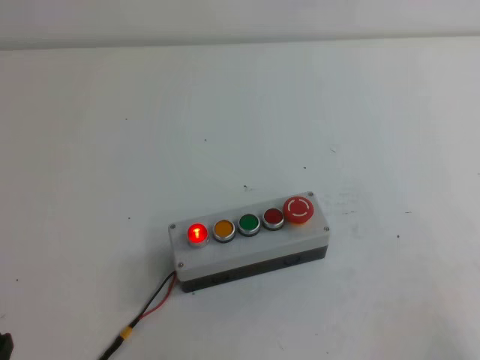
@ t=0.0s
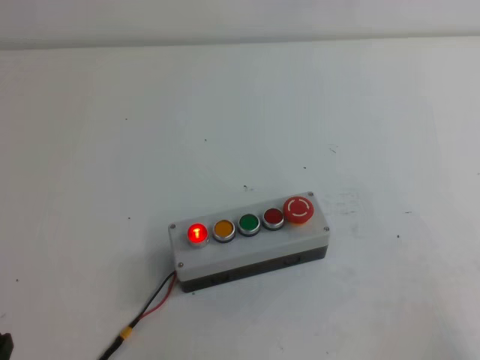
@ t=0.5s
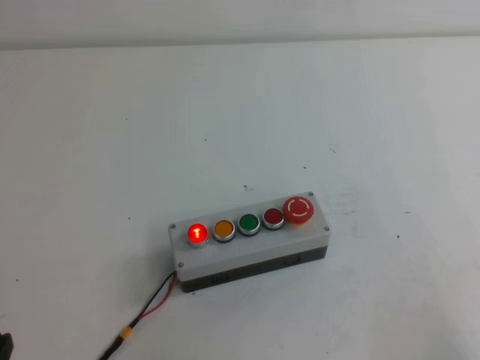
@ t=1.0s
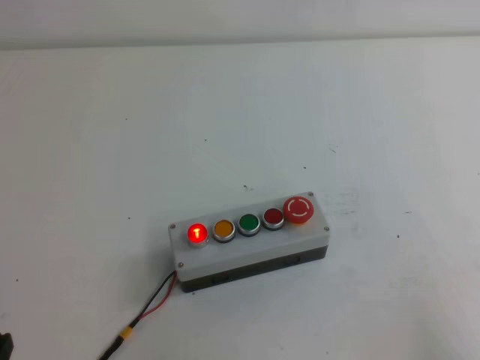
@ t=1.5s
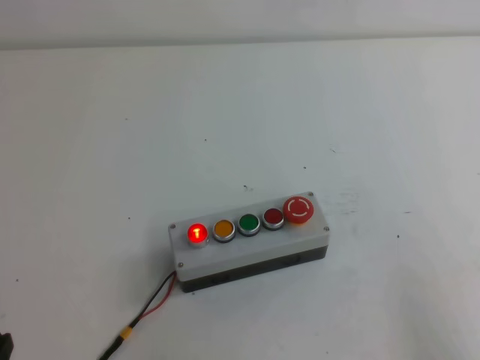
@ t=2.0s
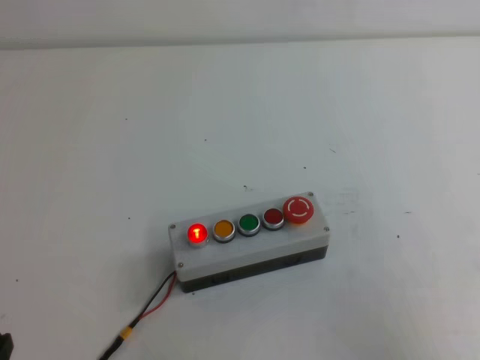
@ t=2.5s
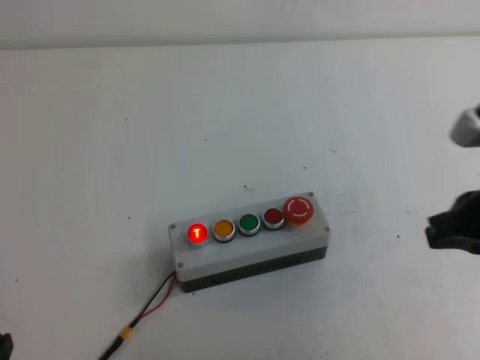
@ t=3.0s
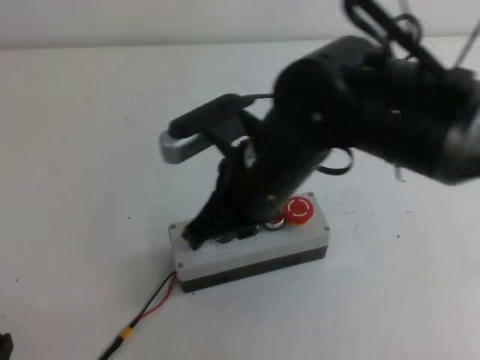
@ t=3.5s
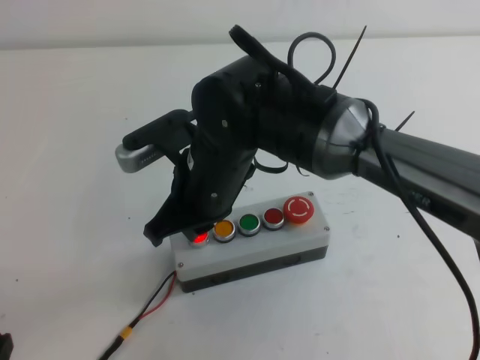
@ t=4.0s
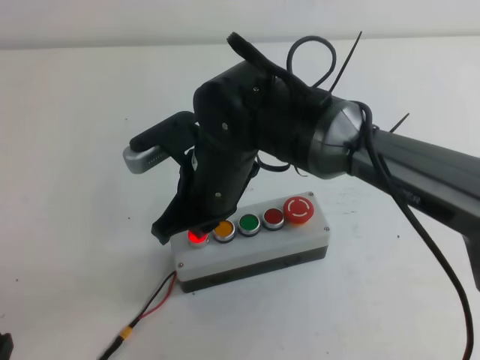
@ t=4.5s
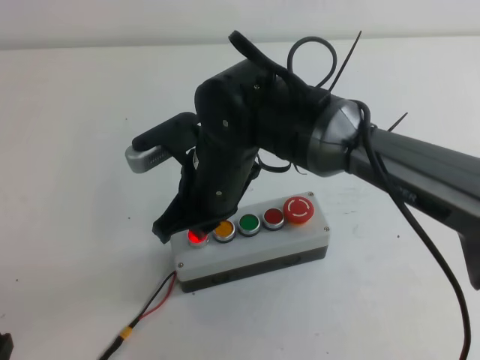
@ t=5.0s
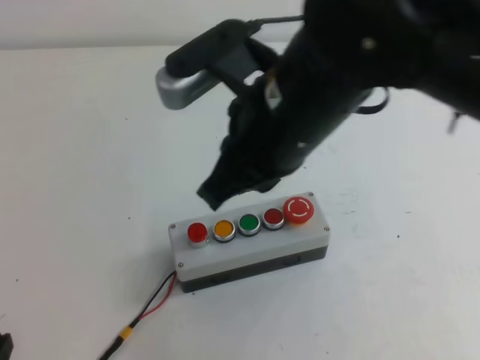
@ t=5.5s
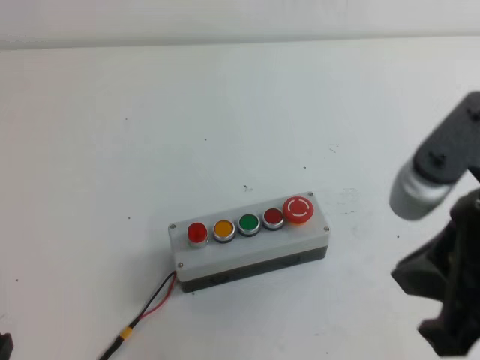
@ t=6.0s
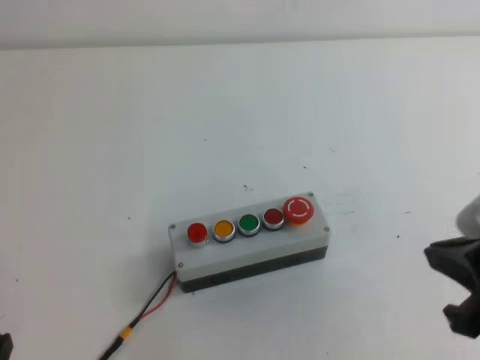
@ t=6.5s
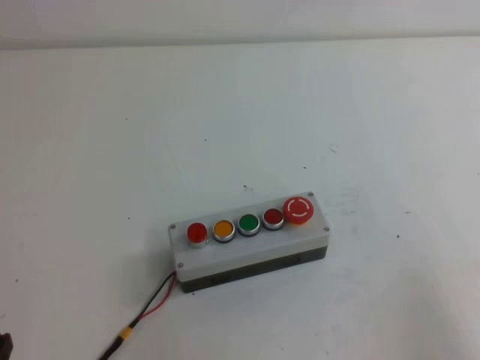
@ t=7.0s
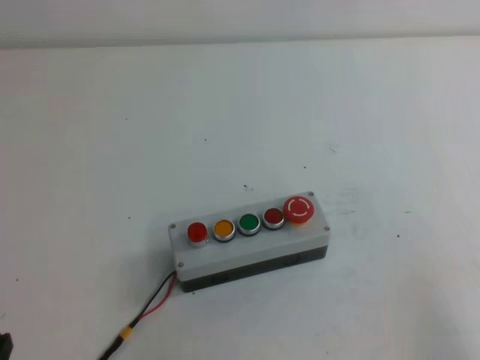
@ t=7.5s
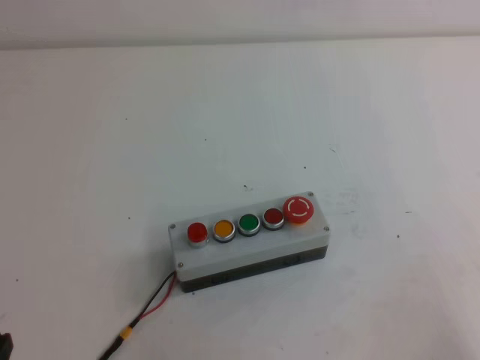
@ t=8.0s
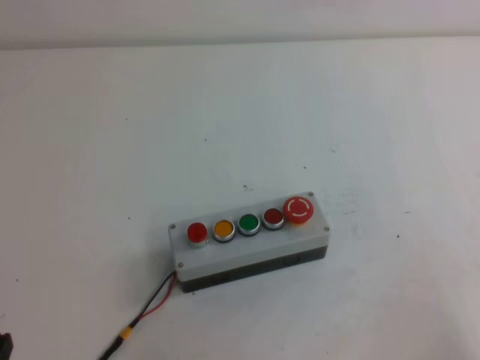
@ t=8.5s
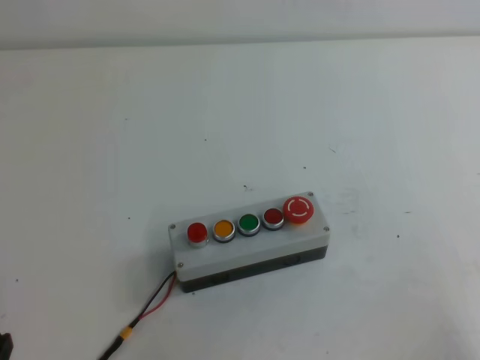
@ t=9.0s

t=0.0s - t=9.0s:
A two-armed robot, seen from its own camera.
Task of the whole recording: press the button switch with the right claw to turn off the button.
Step, t=0.0s - t=9.0s: Press the button to turn off.
t=2.0s - t=4.5s: The right gripper moves to the left and forward, approximately 40 cm.
t=4.5s - t=7.0s: The right gripper moves to the right and backward, some 40 cm.

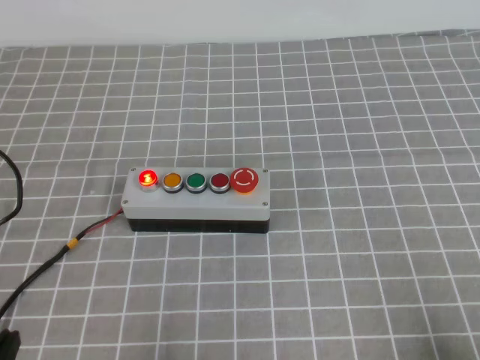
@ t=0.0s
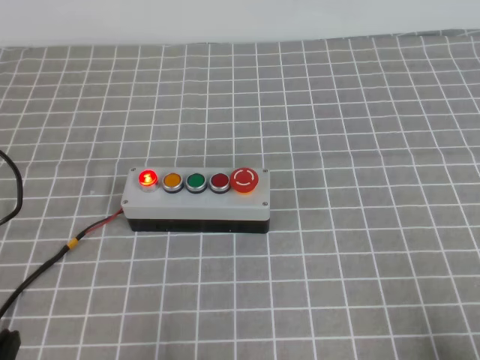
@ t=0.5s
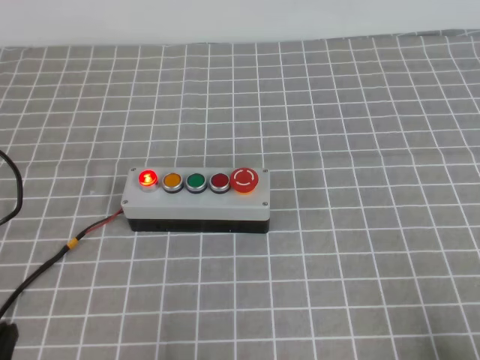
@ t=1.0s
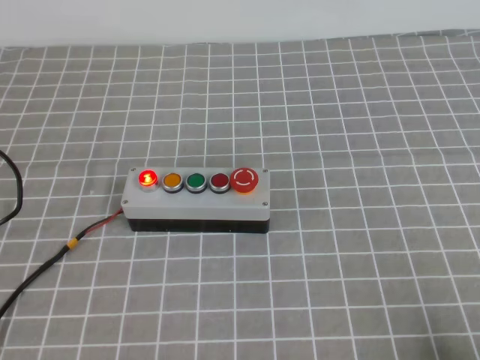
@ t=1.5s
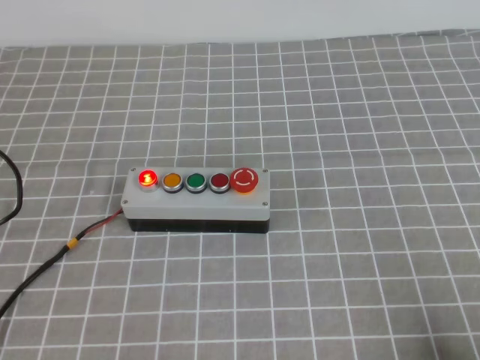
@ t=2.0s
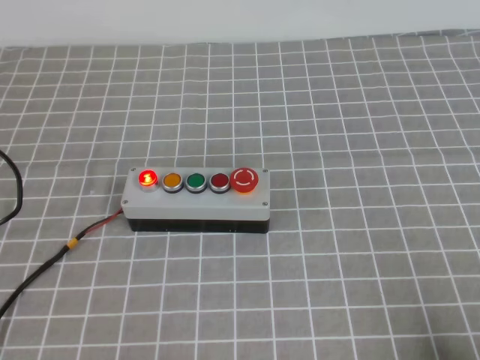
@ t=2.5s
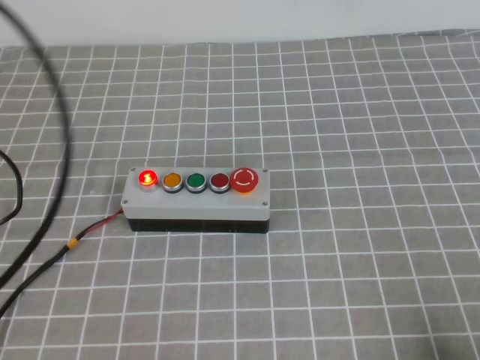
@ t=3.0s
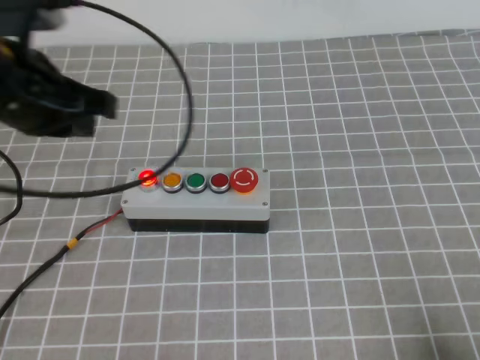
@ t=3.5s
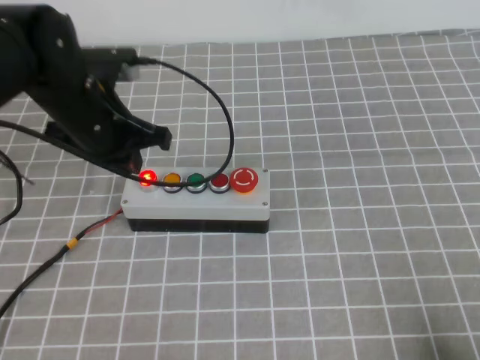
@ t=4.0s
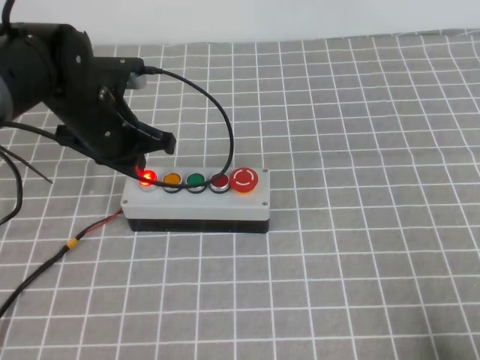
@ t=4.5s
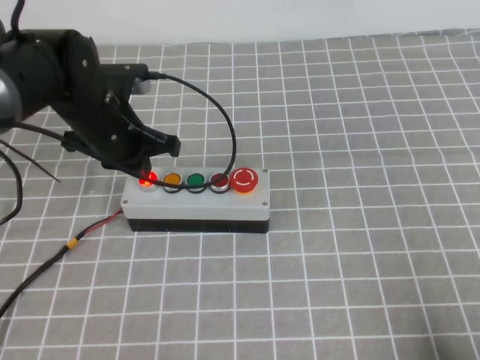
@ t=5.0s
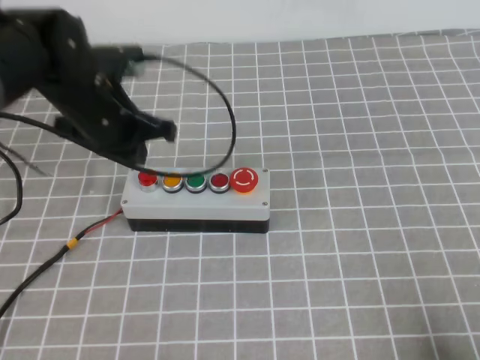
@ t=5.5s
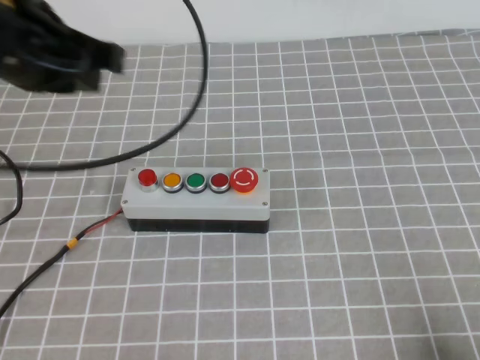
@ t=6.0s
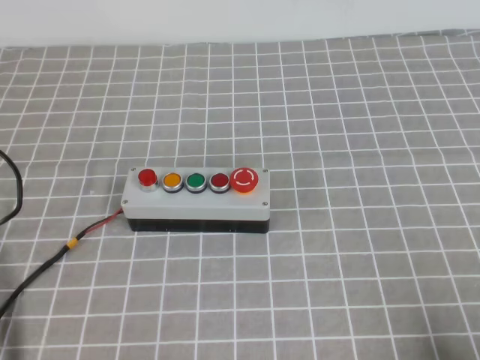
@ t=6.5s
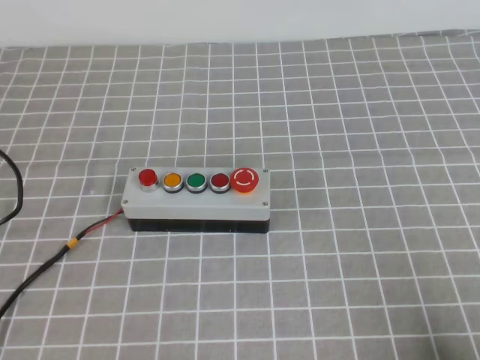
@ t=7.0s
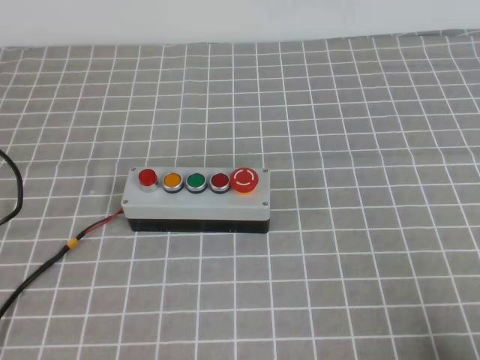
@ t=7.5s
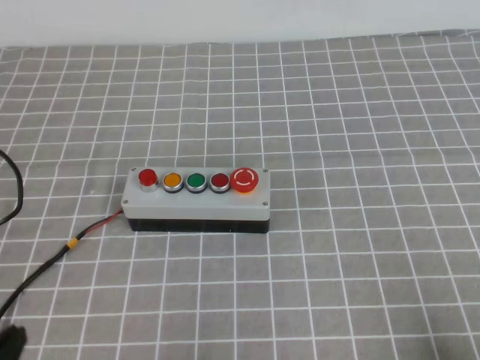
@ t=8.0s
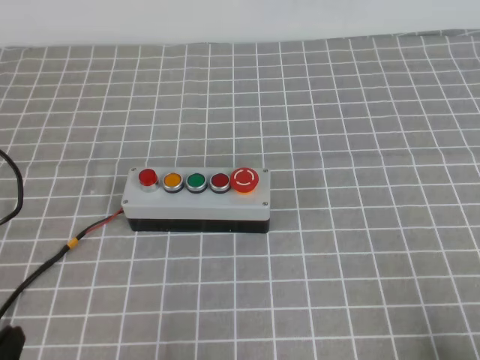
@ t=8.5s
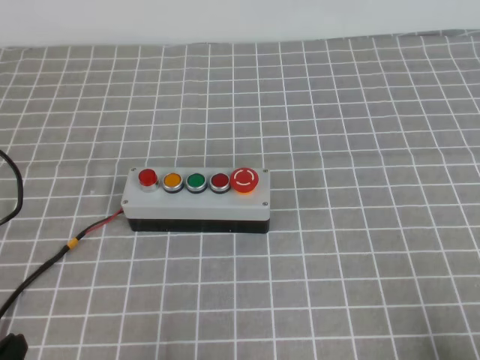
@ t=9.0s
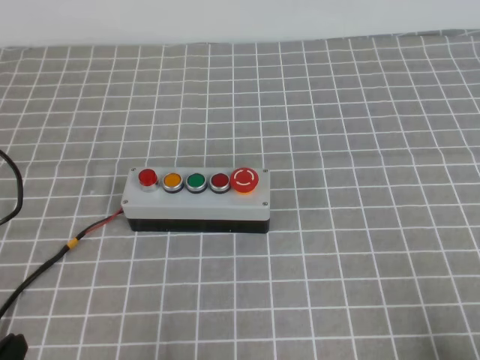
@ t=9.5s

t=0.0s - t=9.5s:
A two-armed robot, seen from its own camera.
Task of the whole recording: press the button switch on the grey tablecloth with the left gripper to turn off the button.
Step, t=0.0s - t=9.5s: Press the button to turn off.
t=2.0s - t=4.0s: The left gripper is displaced forward by approximately 35 cm.
t=4.0s - t=5.5s: The grippers make only small movements.
t=5.5s - t=7.5s: The left gripper moves backward, about 35 cm.
t=7.5s - t=9.5s: The left gripper shifts roughly 15 cm downward.

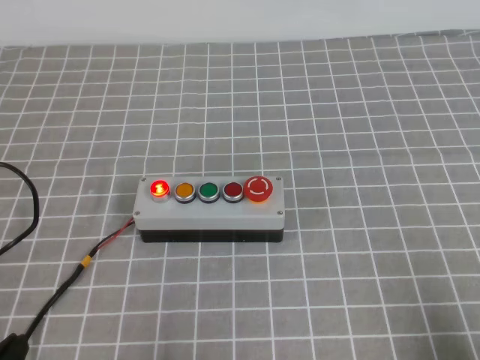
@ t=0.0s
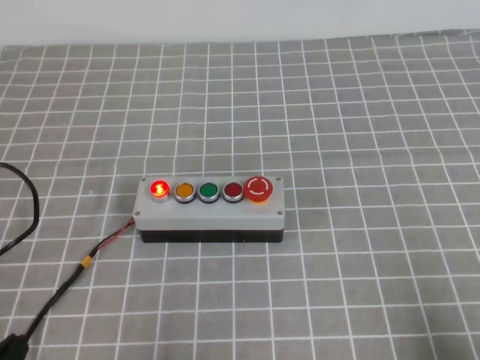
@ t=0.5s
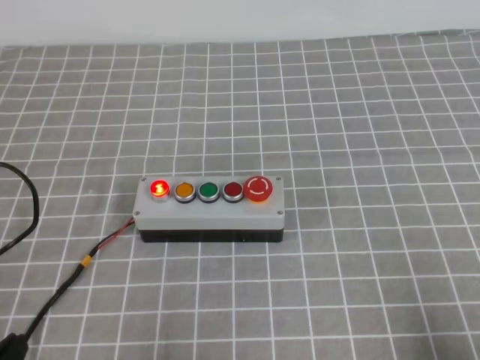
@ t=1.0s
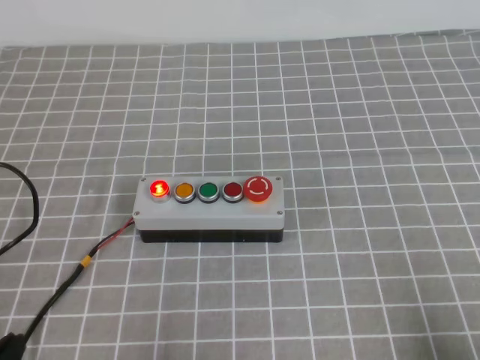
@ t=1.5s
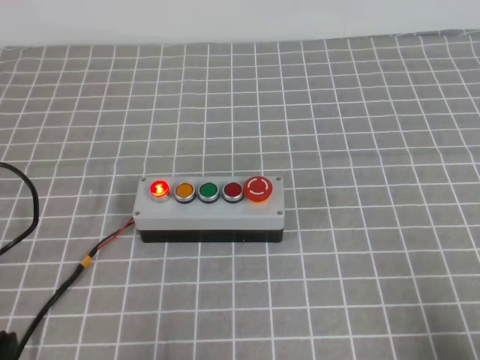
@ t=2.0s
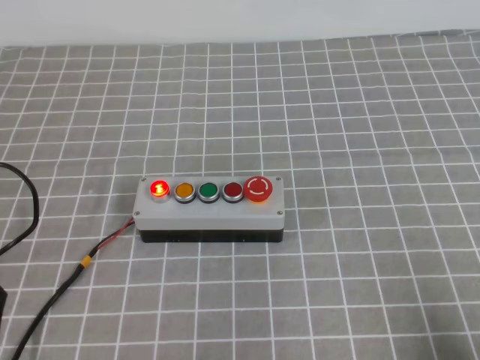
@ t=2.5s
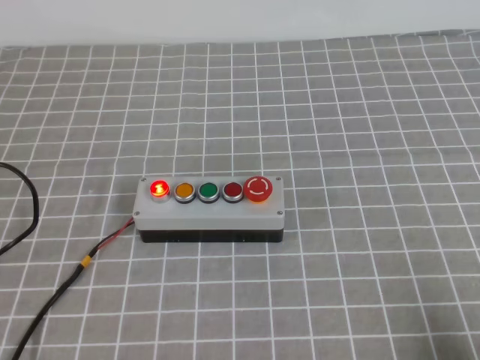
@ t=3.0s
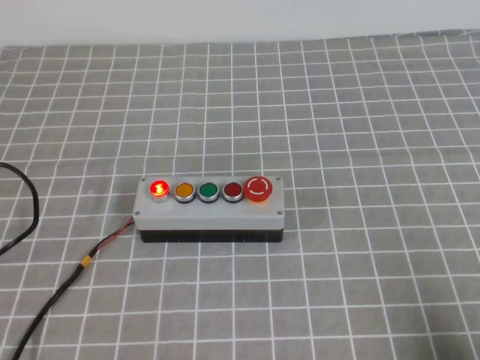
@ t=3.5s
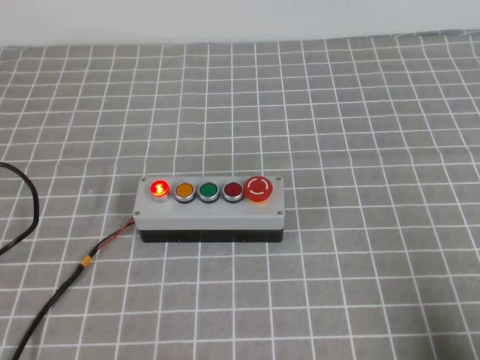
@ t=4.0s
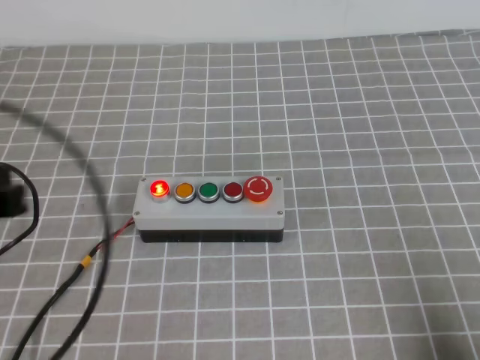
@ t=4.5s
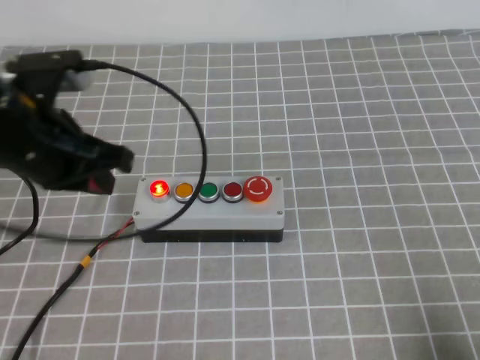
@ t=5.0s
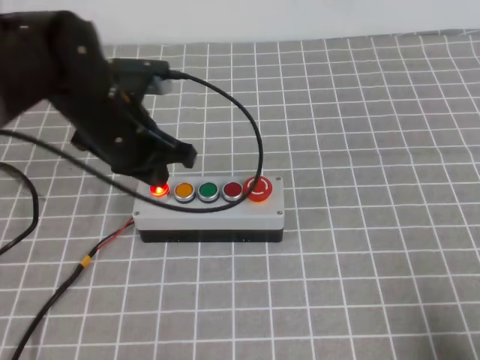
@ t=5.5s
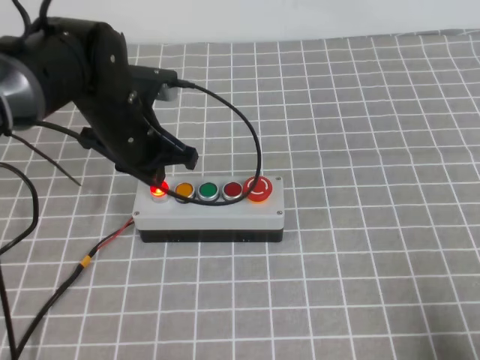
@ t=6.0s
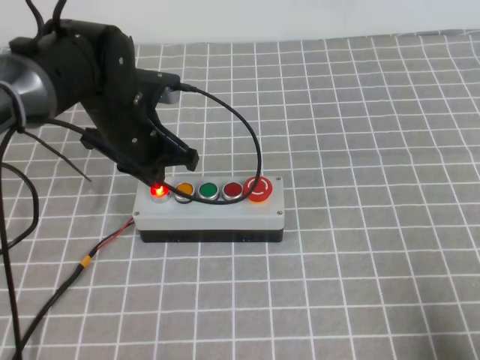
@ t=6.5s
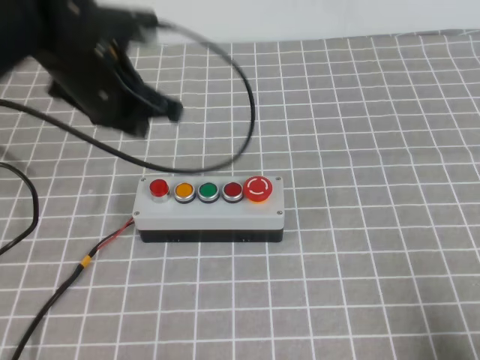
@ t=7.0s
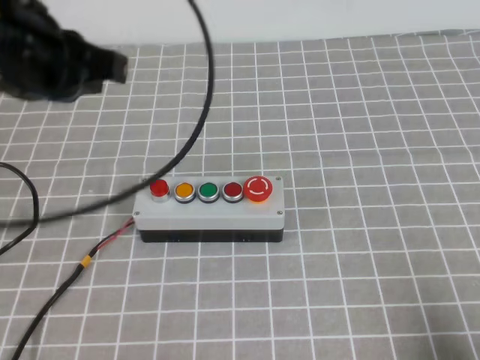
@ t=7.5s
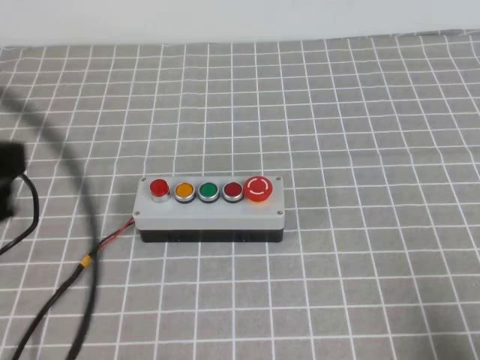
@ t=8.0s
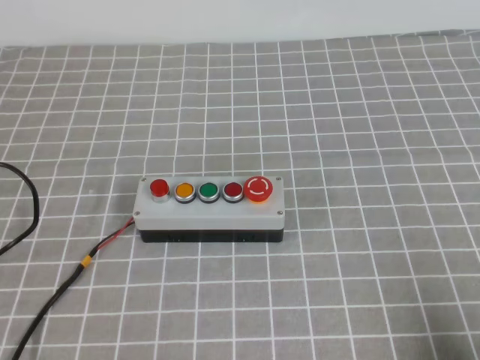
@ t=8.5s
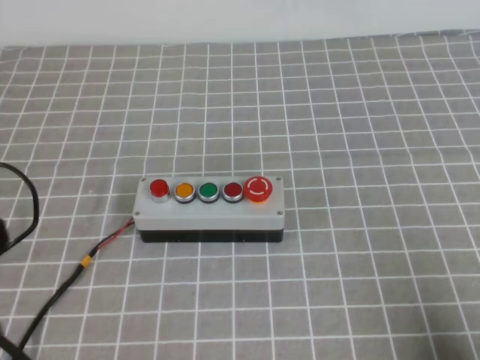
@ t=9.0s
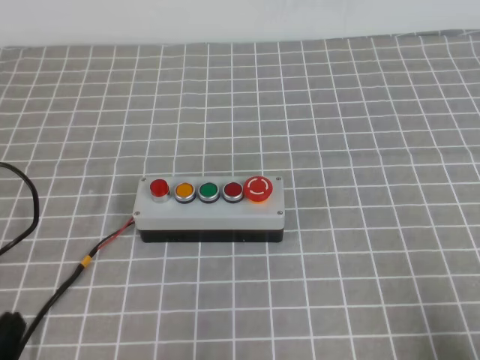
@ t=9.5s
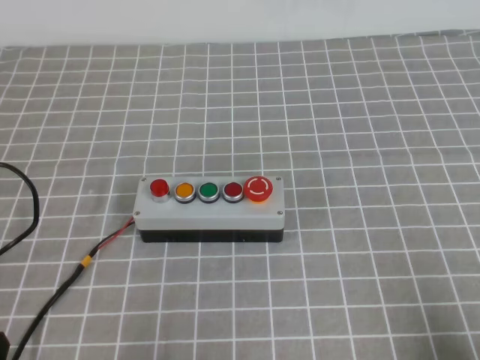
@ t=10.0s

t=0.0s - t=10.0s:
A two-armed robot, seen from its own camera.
Task of the whole recording: press the button switch on the grey tablecloth with the left gripper to turn off the button.
t=4.0s - t=6.0s: The left gripper moves forward, to the right and downward, about 35 cm.
t=6.0s - t=8.0s: The left gripper goes some 30 cm backward and upward.
t=8.0s - t=10.0s: The left gripper is displaced downward by about 25 cm.
